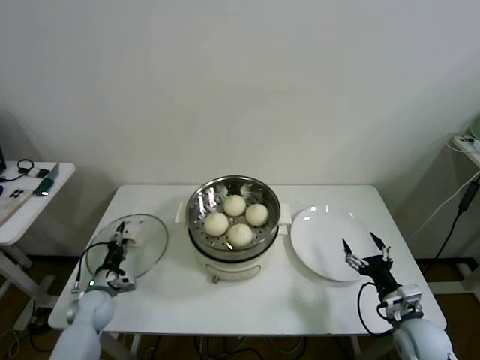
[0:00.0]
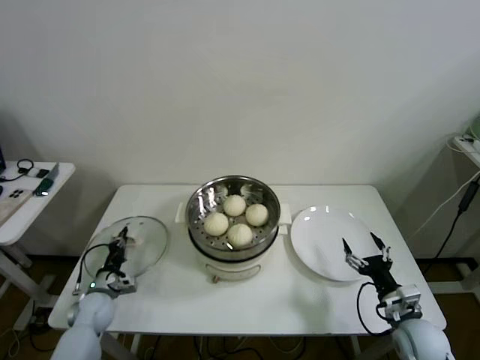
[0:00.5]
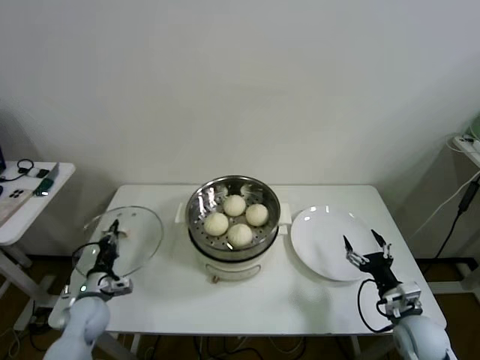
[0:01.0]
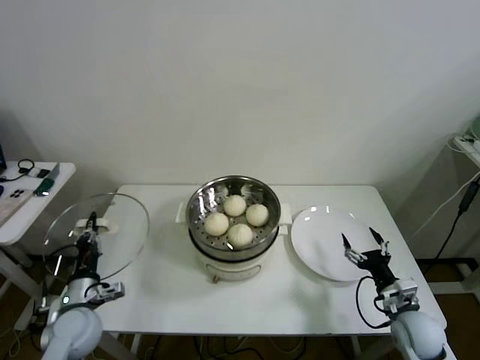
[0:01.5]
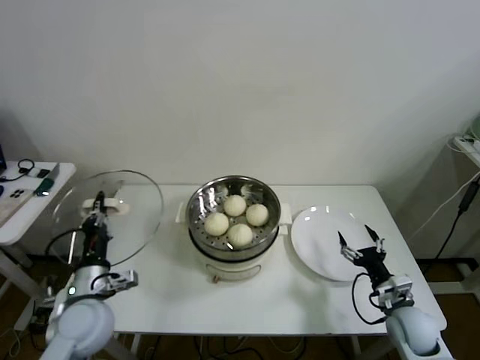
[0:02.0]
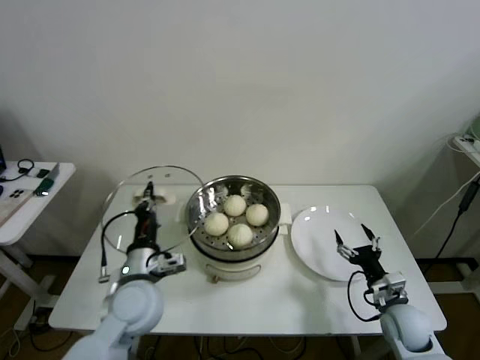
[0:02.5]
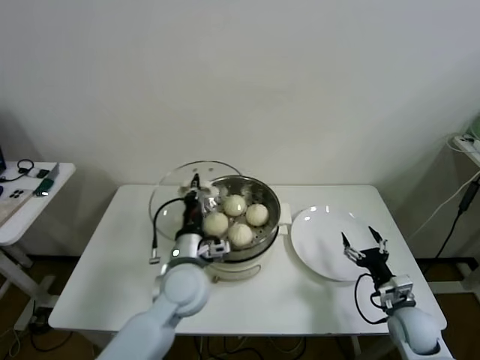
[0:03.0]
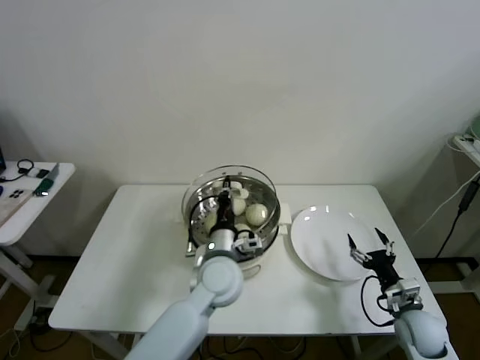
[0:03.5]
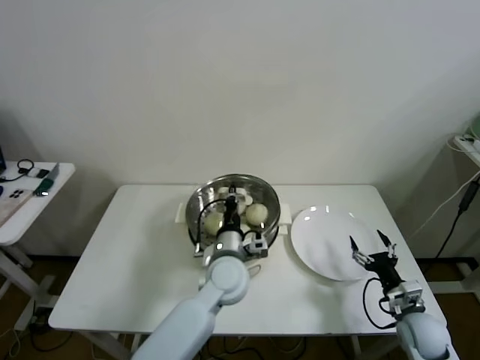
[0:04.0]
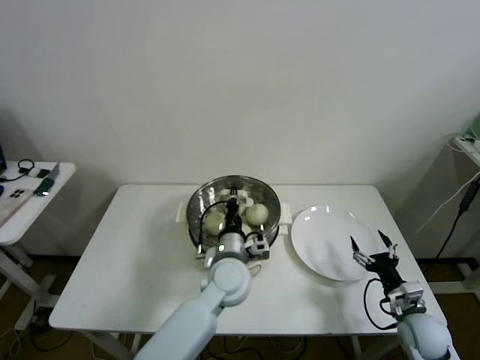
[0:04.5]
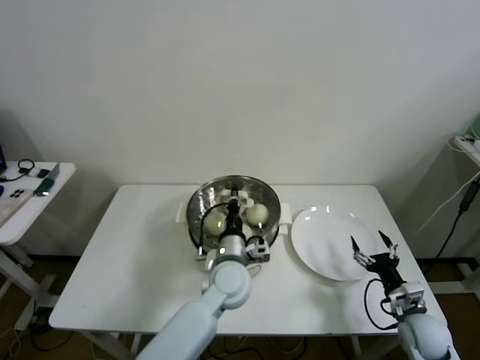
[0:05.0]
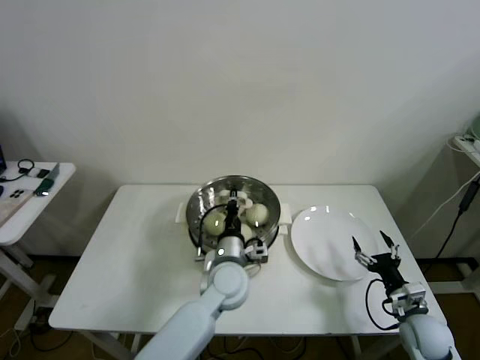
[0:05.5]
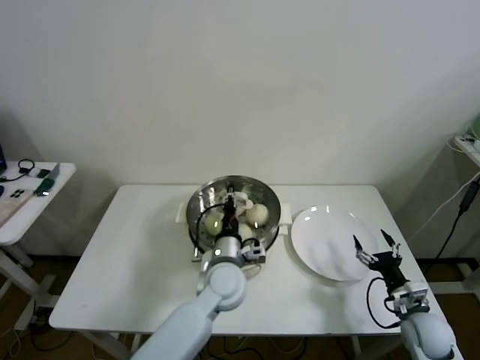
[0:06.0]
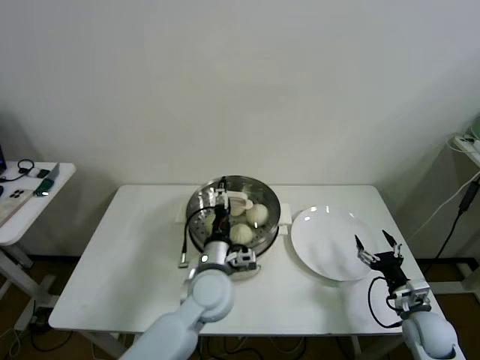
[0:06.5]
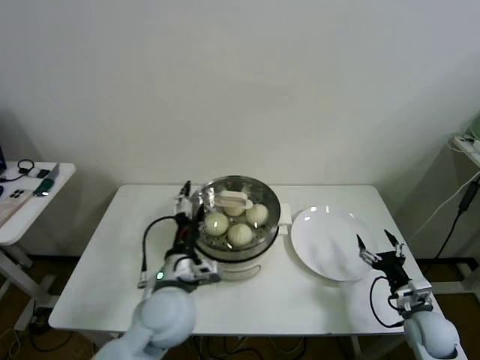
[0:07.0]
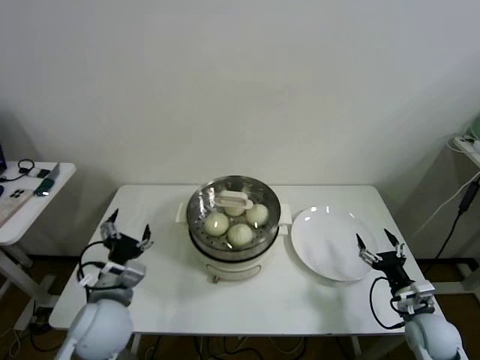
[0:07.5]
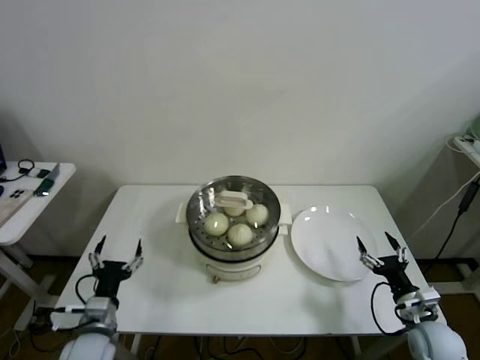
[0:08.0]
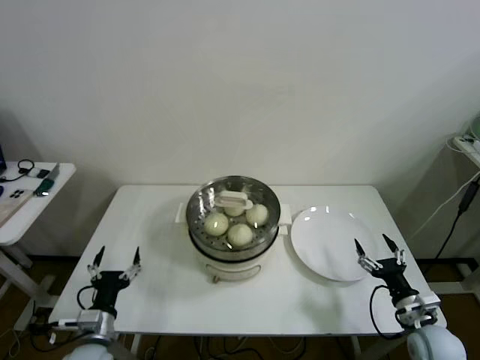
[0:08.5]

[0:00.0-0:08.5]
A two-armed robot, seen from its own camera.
Task of the whole recording: take steamed baozi put them in steamer then cover it.
Step, 0:00.5 to 0:06.5: Place the pot lid on the steamer with left gripper.
0:00.0 to 0:02.0: The left gripper is displaced upward, to the right and backward by about 20 cm, and closes.
0:02.0 to 0:04.0: The left gripper goes approximately 25 cm to the right.
0:04.0 to 0:06.5: The left gripper opens its fingers.
0:06.5 to 0:08.5: The left gripper shifts roughly 30 cm to the left and backward.
